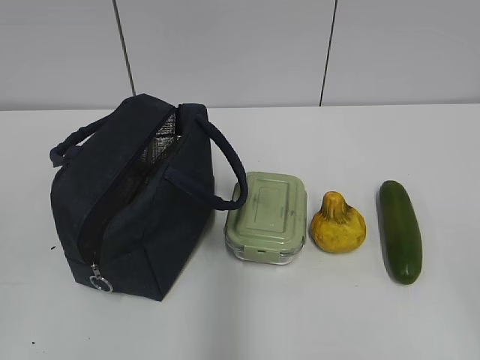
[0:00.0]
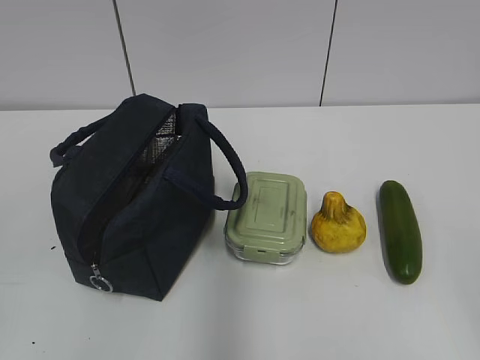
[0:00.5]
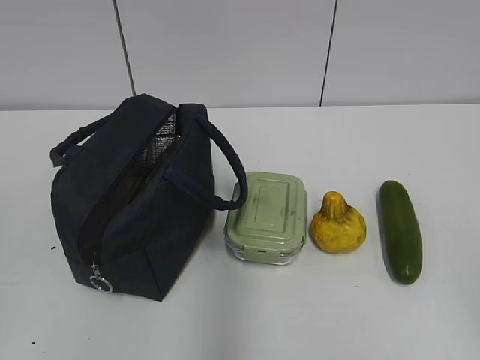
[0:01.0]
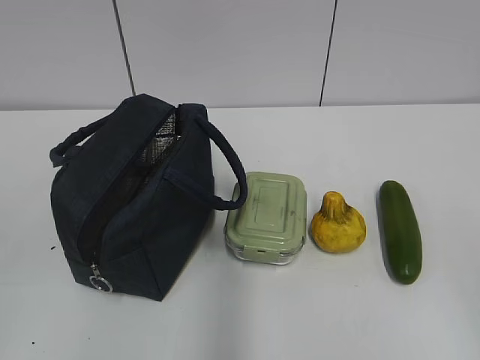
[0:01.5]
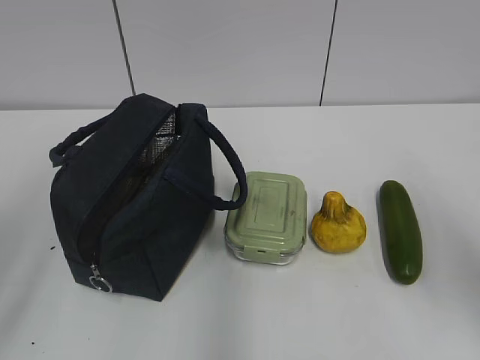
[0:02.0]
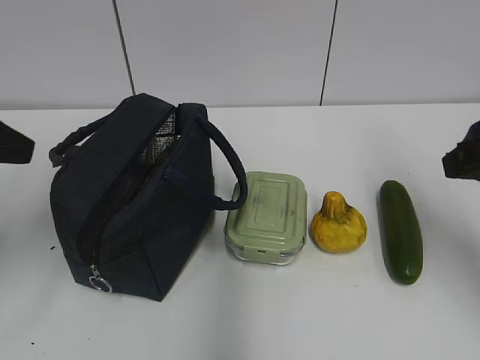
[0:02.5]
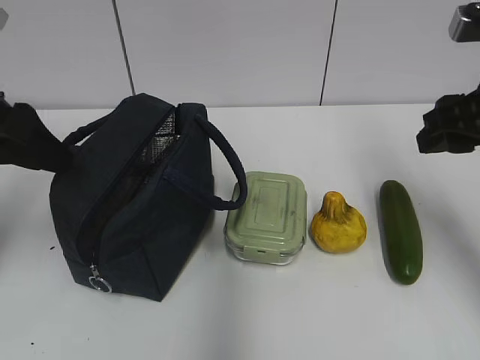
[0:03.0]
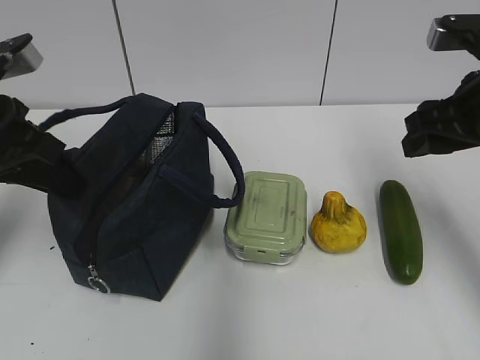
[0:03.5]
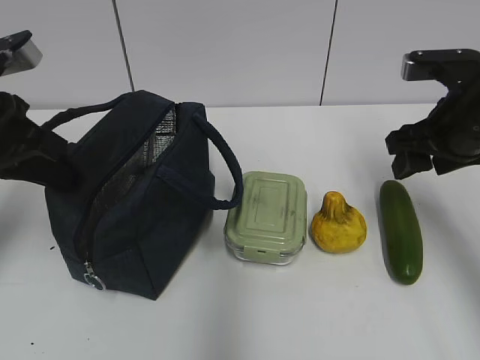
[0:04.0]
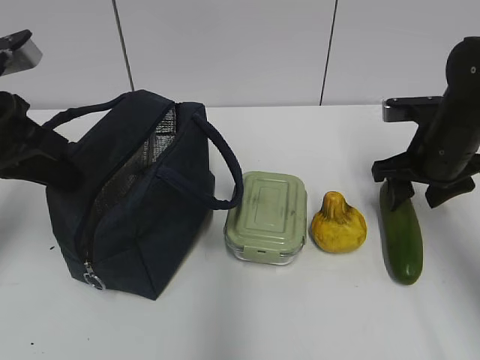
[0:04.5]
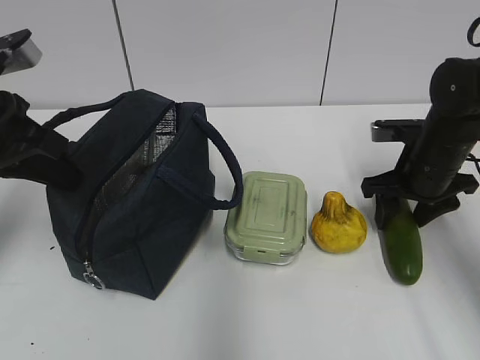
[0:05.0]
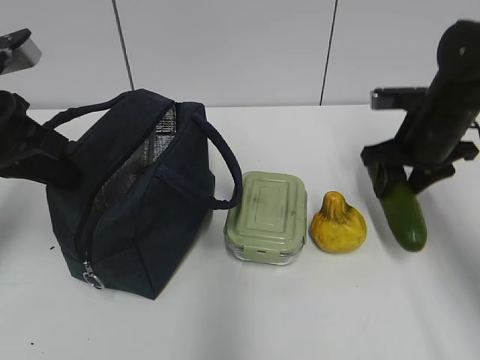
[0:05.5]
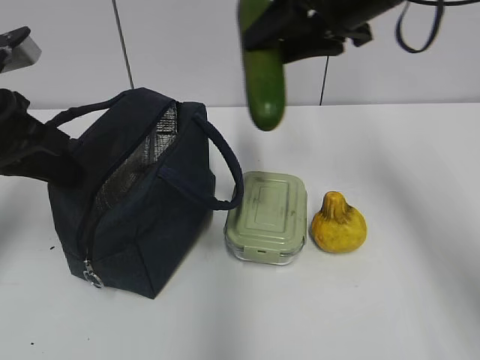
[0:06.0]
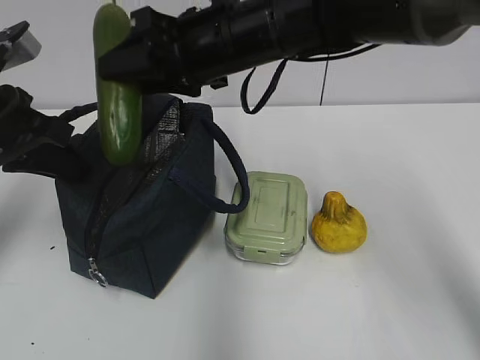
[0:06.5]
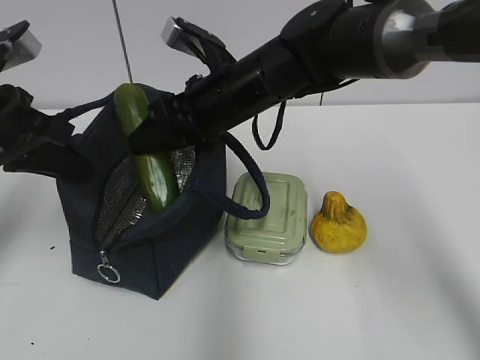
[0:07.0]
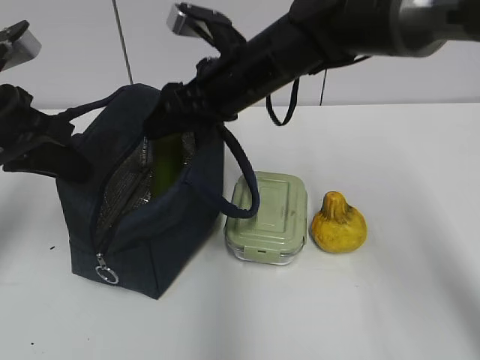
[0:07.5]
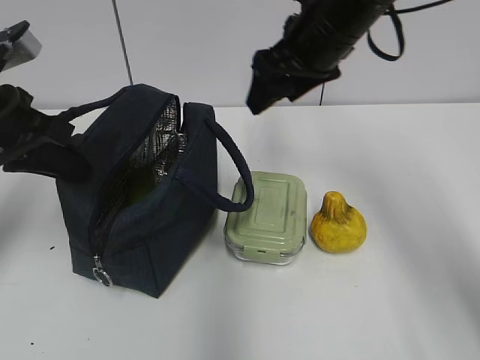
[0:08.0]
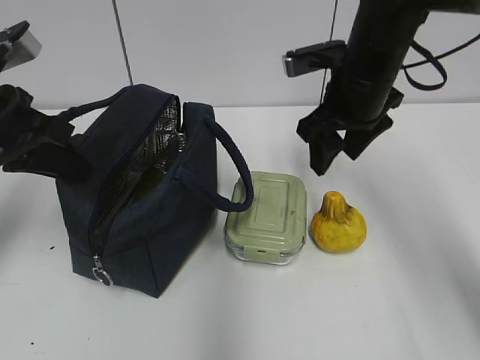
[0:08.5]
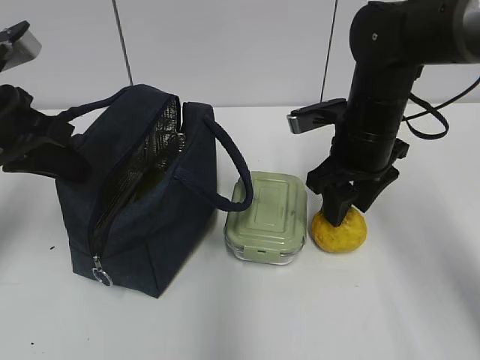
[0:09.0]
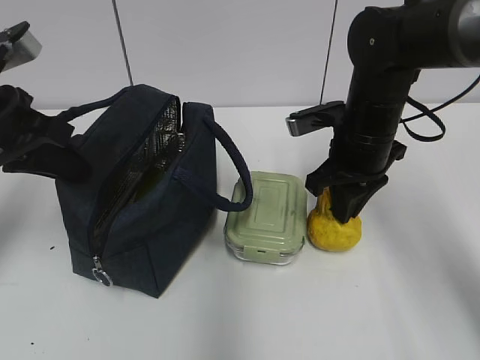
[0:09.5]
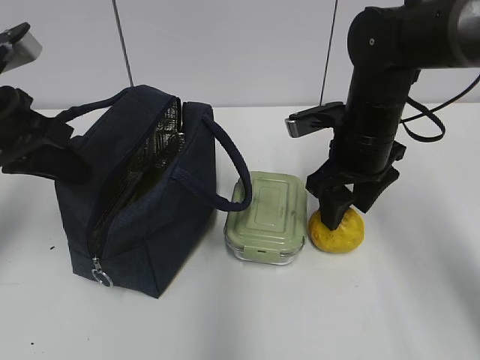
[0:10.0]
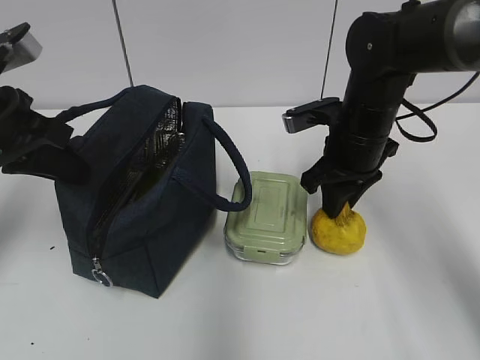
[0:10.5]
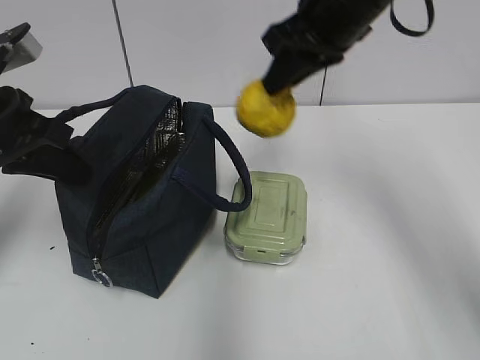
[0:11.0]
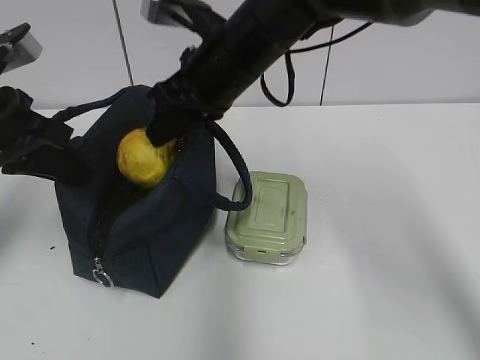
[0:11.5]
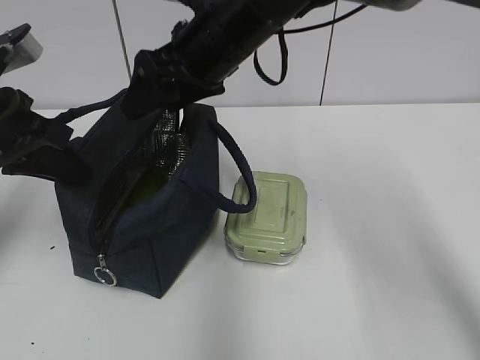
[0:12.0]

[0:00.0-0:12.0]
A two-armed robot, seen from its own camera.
Step, 0:00.0 to 0:05.0: Grab the cucumber with your right hand.
Step, 0:07.0 to 0:07.5: Place it into the bag with your right hand.
Step, 0:08.0 to 0:10.0: Grab the pear with your right hand.
Step, 0:11.0 to 0:11.5: Place it into the bag with your right hand.
0:02.0 to 0:04.0: Both grippers move forward, some 20 cm. The left gripper closes its fingers.
0:04.0 to 0:06.0: The right gripper travels upward and to the left by approximately 15 cm.
0:08.0 to 0:10.0: The right gripper moves downward, about 10 cm, and closes, then opens again.
0:10.0 to 0:12.0: The right gripper moves to the left and upward, about 20 cm, and closes, then opens again.

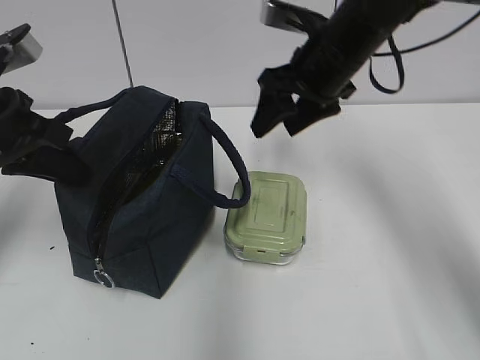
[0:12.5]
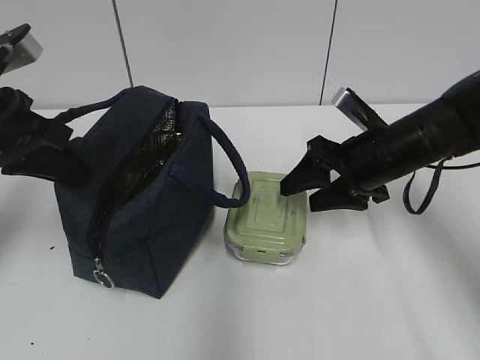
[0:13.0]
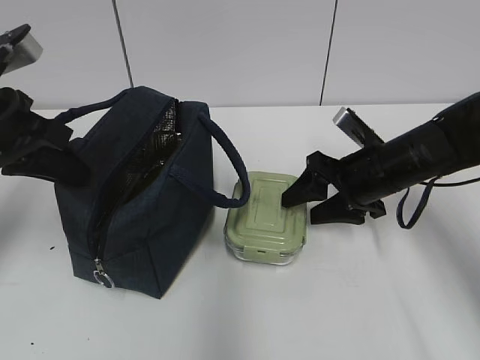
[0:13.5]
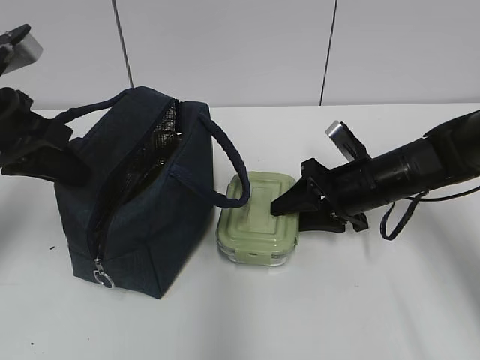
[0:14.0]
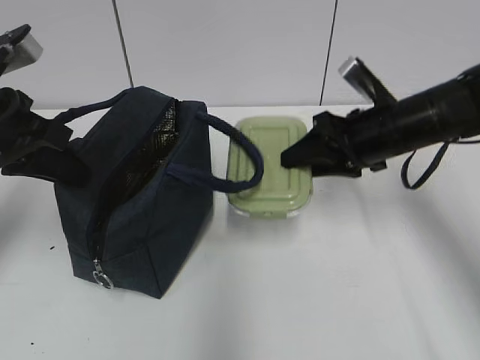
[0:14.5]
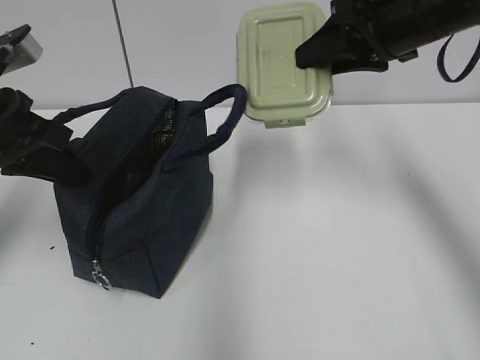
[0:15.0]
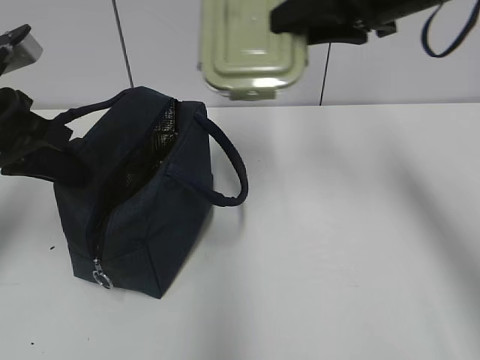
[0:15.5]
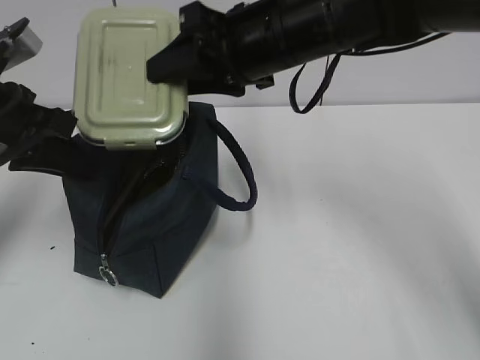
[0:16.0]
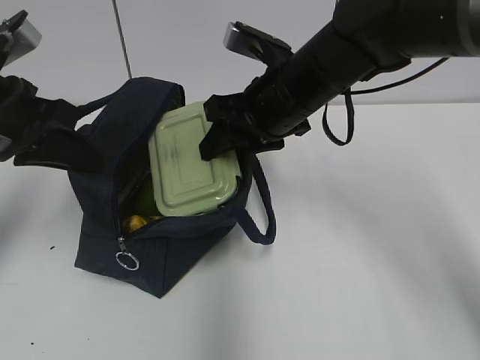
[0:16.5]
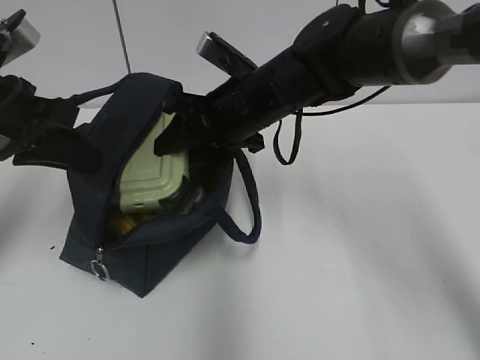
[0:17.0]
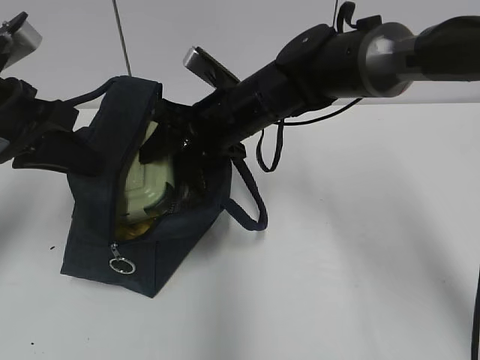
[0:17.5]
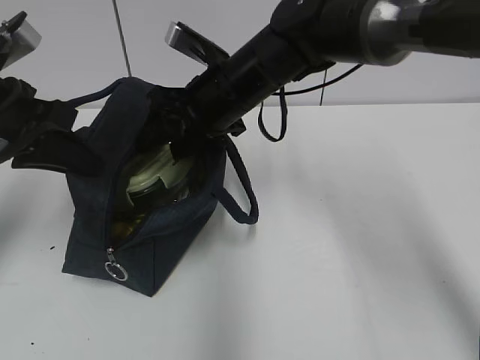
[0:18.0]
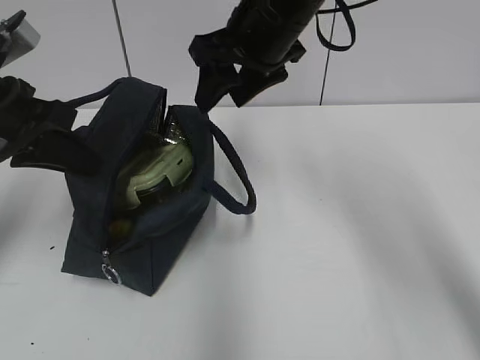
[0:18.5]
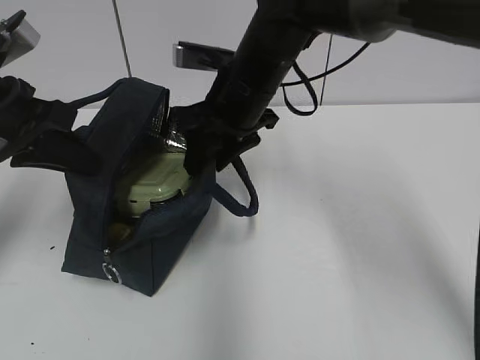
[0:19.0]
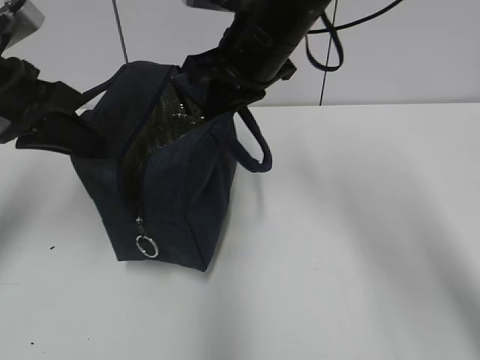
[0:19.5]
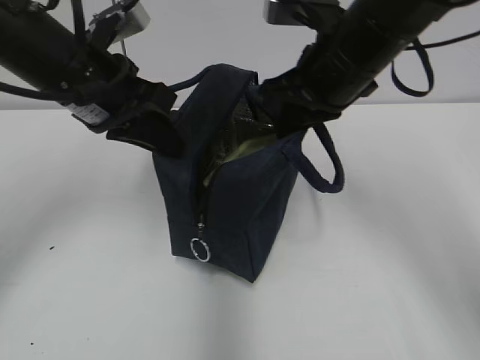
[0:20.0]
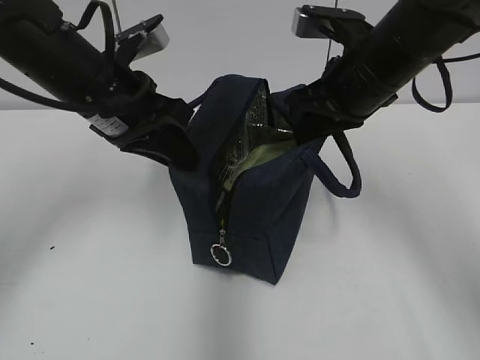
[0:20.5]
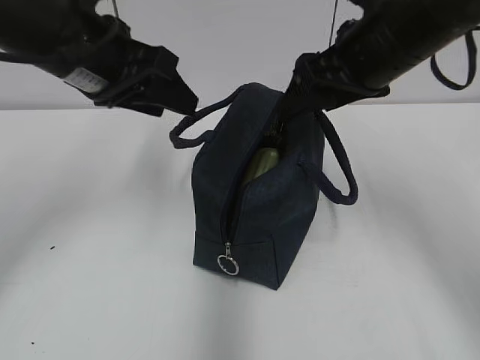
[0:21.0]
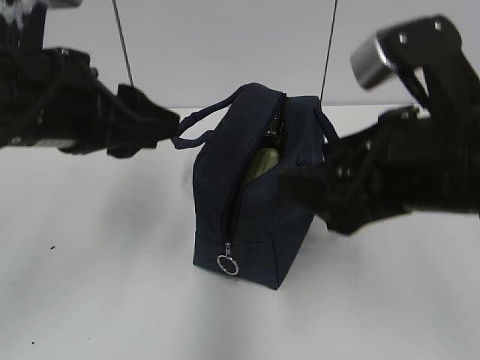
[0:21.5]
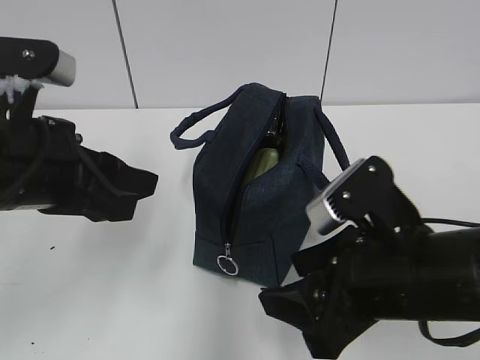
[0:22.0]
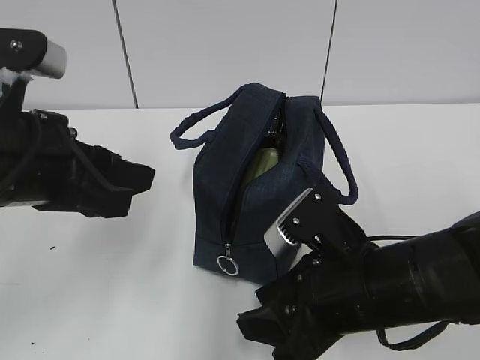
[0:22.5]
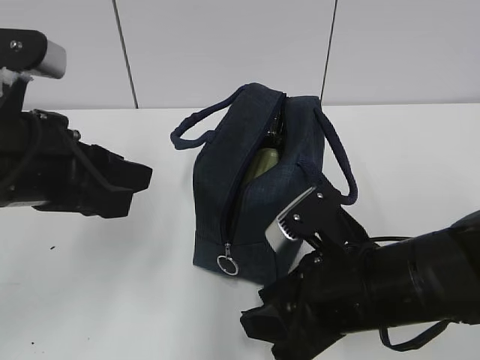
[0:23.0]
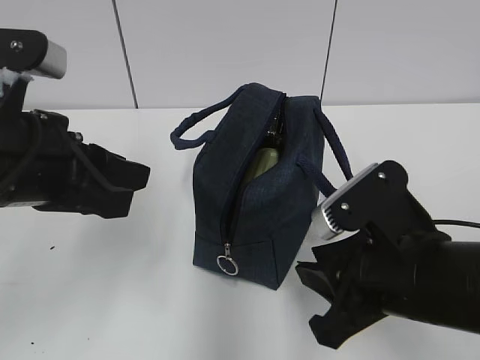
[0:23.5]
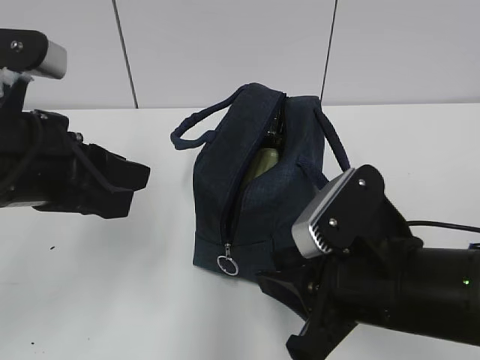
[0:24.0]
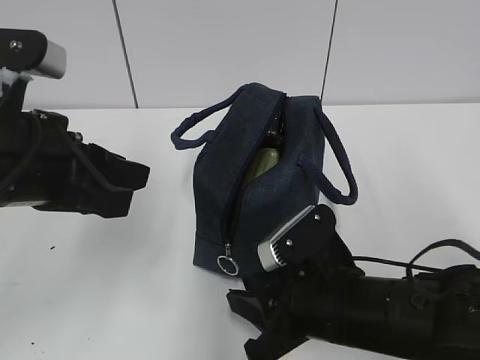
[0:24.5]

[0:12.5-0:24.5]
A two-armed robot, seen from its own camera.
Step, 0:12.5 to 0:13.5: Grab the lunch box with your right hand.
Step, 0:18.0 to 0:19.0: Grab the lunch bag with your right hand.
Step, 0:19.5 to 0:20.5: Move the lunch bag to the right.
0:12.5 to 0:14.5: The right gripper goes approximately 10 cm downward and to the right.
0:14.5 to 0:16.5: The right gripper moves to the left, about 10 cm, and reaches approximately 15 cm upward, then returns.
0:16.5 to 0:18.5: The right gripper shifts approximately 5 cm upward.
0:18.5 to 0:20.5: The grippers both shift to the right by some 10 cm. The left gripper opens its fingers; the right gripper closes its fingers.
0:20.5 to 0:22.5: The left gripper moves backward, roughly 10 cm, and opens, while the right gripper moves backward and downward, roughly 20 cm, and opens its fingers.

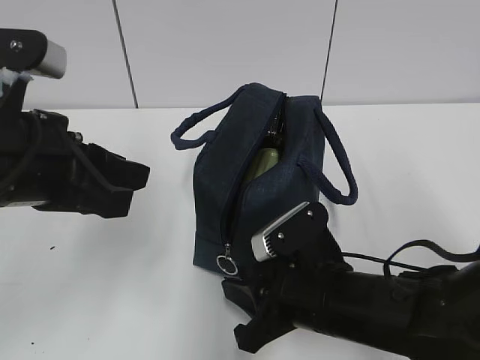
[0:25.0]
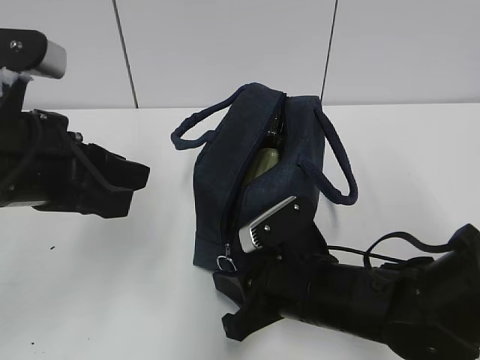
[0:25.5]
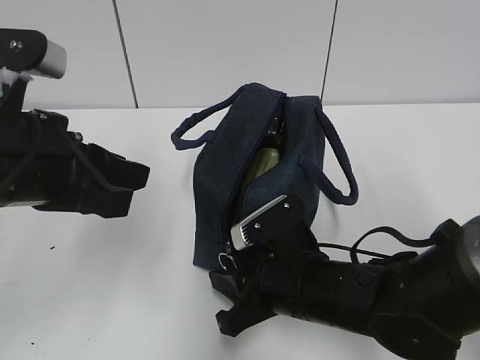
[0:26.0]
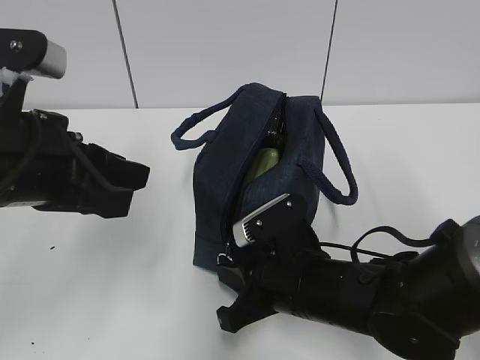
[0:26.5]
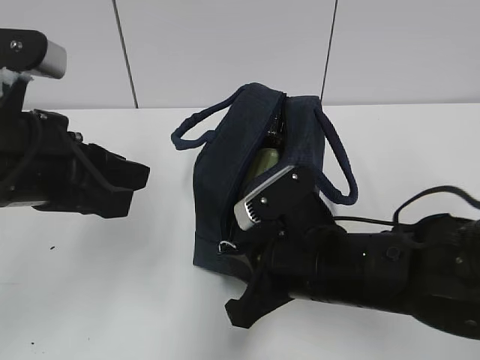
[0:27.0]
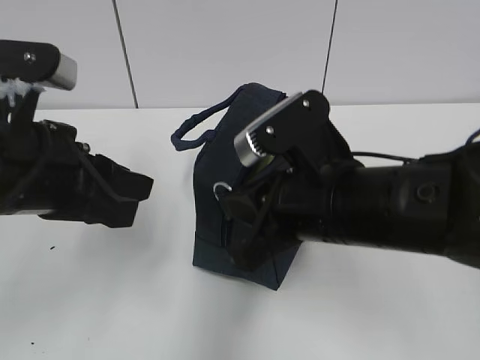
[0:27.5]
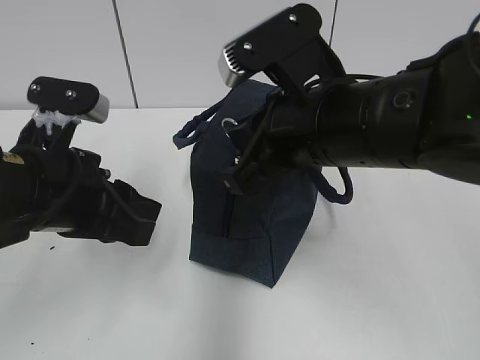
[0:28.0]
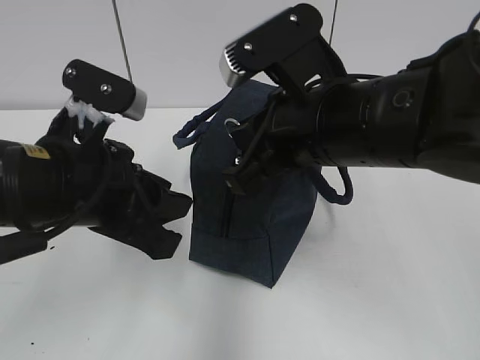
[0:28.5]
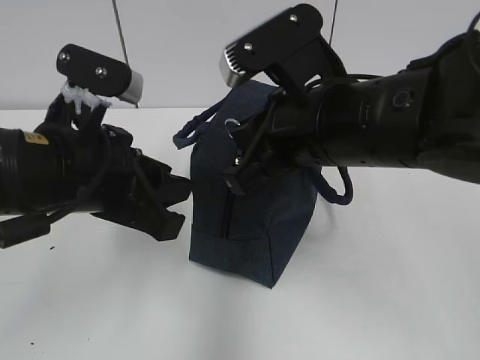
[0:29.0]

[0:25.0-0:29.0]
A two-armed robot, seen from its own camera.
0:25.0 to 0:27.0: The right gripper closes.
0:27.0 to 0:29.0: The right gripper is displaced upward by about 10 cm.
